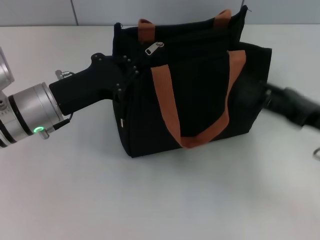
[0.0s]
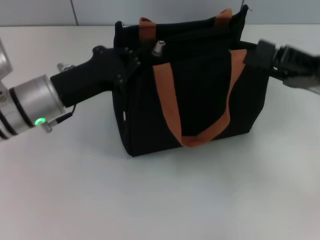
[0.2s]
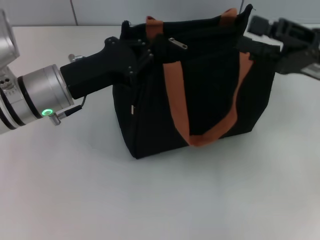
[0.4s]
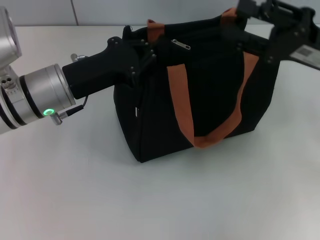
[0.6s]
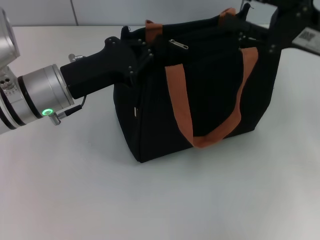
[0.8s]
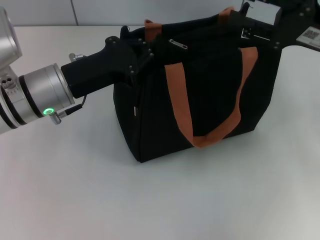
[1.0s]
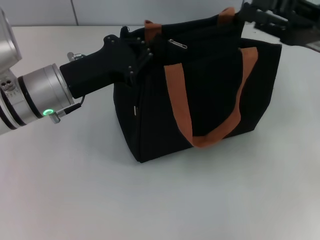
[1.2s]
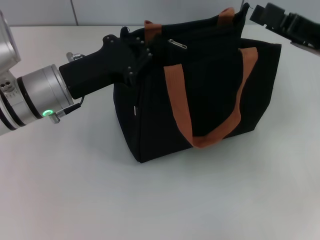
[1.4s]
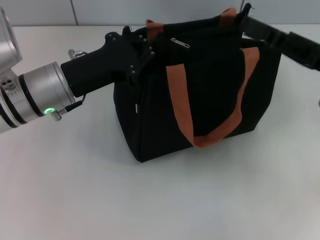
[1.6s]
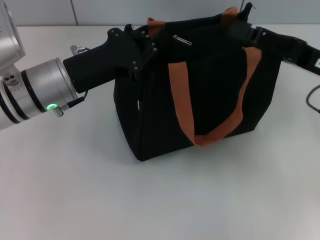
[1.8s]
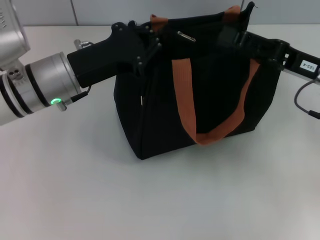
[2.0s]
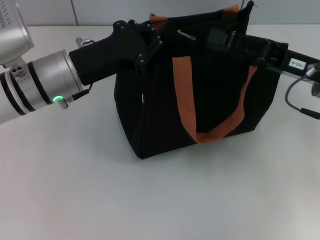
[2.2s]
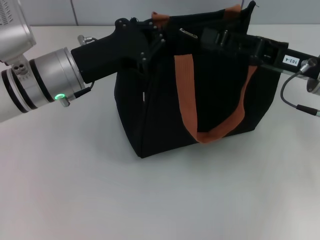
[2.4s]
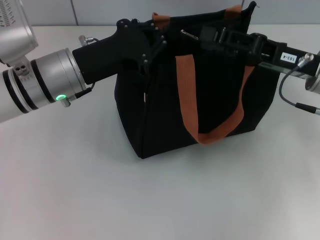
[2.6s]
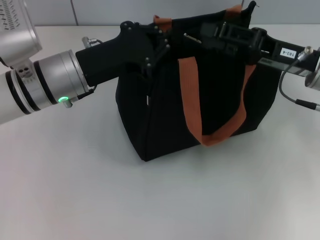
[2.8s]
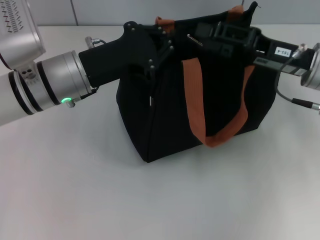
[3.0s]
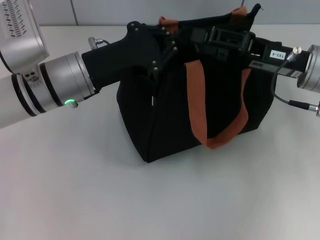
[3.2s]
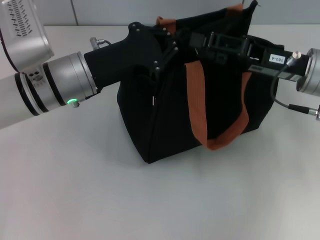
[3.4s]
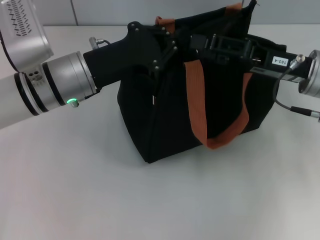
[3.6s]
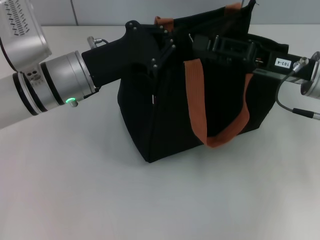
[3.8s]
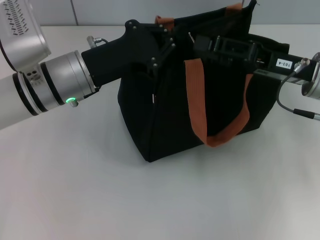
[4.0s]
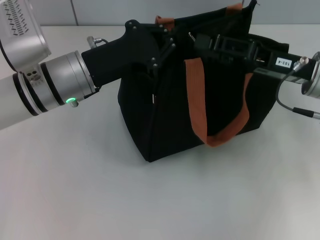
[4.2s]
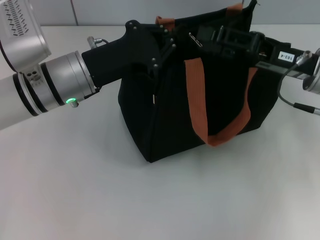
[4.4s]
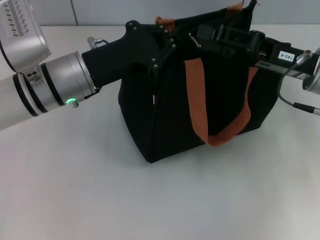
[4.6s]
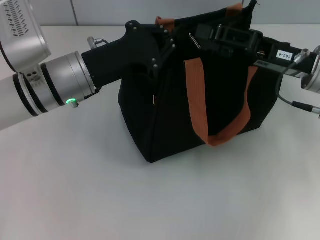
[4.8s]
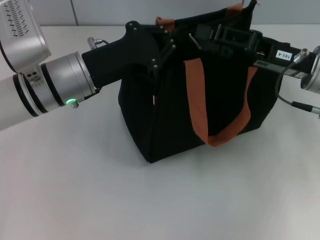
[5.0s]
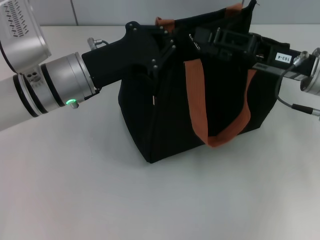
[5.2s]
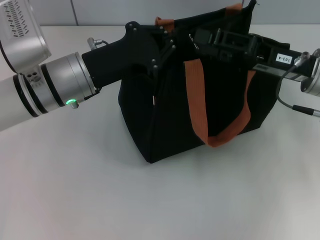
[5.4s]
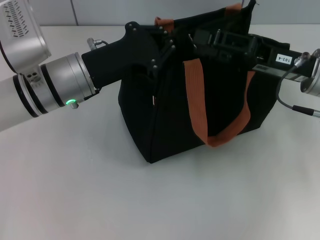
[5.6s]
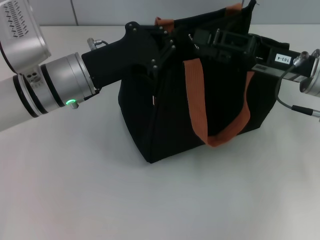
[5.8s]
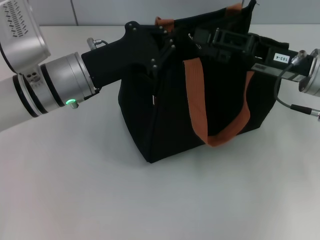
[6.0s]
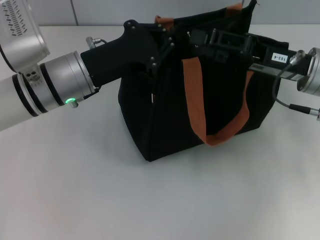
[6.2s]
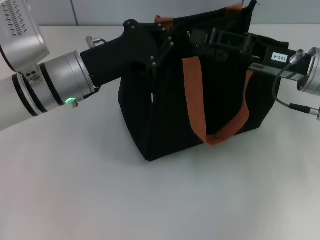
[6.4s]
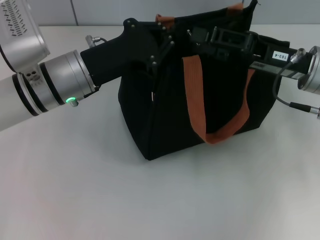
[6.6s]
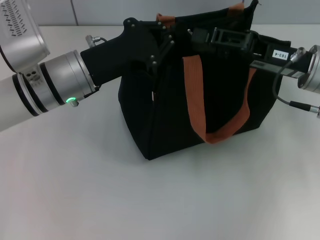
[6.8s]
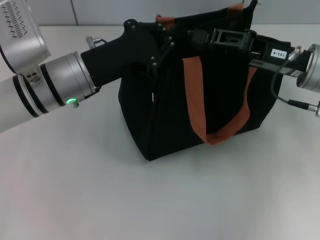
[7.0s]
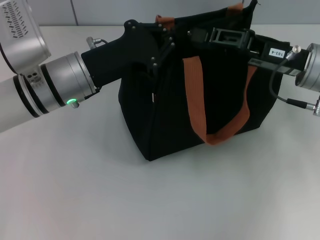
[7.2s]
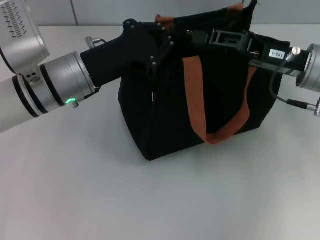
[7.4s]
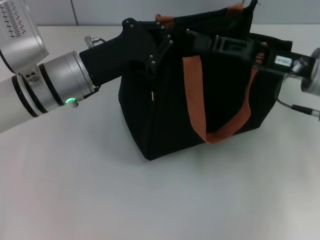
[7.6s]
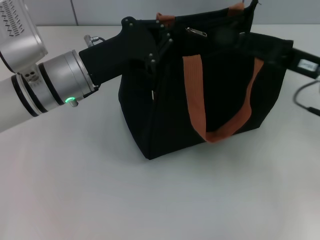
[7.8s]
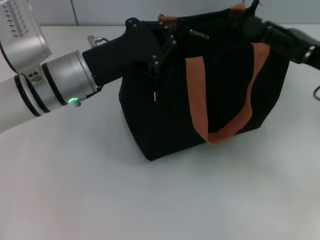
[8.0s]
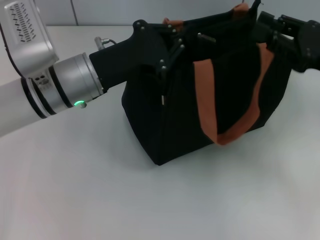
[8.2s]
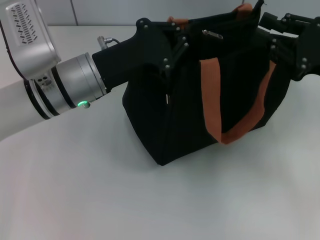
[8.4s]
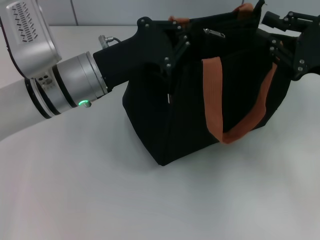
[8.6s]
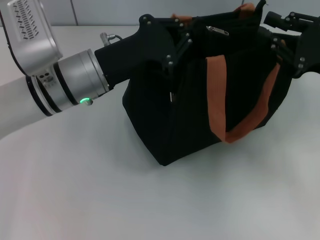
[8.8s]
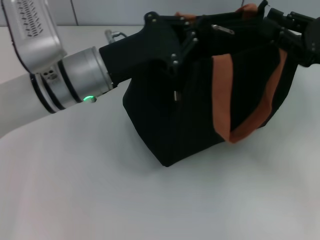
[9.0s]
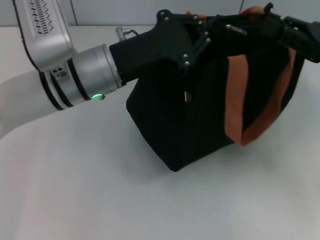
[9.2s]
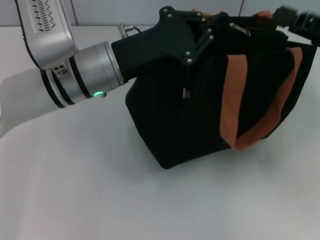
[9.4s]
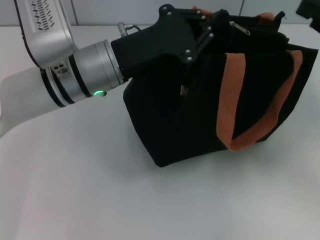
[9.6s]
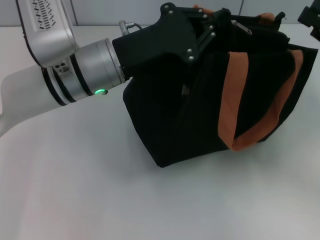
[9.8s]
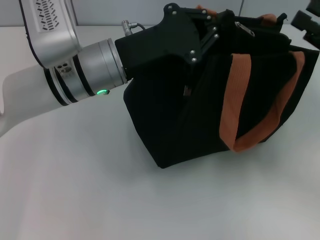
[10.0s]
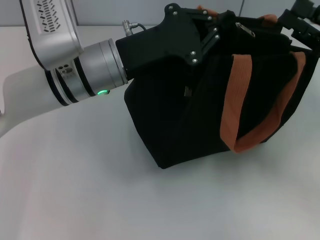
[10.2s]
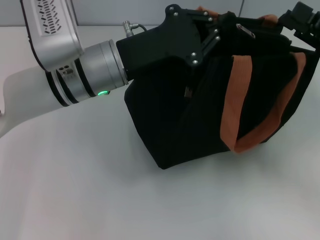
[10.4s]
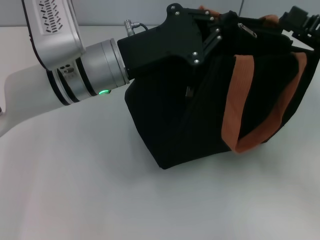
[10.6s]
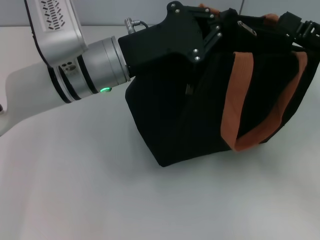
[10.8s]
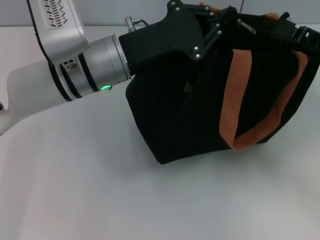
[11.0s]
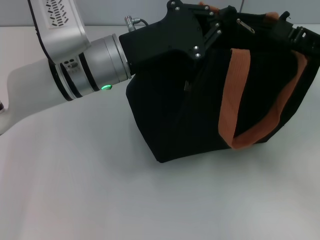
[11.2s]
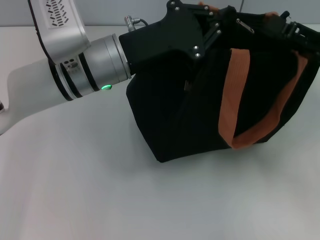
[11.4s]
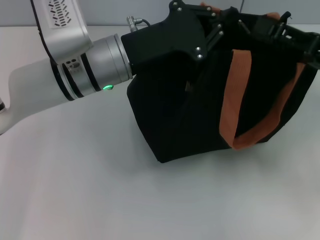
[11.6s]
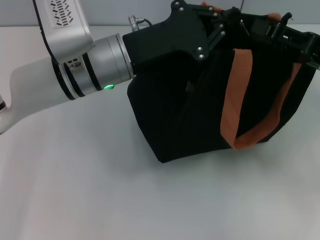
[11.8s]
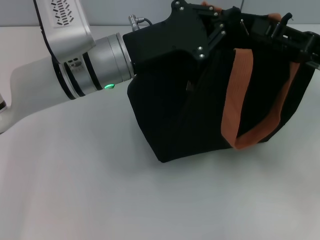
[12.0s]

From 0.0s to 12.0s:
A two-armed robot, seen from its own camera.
From 1.6s to 3.0s: The right gripper shifts by some 5 cm.
From 3.0s to 4.4s: The grippers move only a little.
From 4.4s to 6.0s: Neither gripper changes place.
From 6.0s to 7.6s: The right gripper closes up.
From 7.6s to 9.0s: The right gripper shifts approximately 5 cm to the right.
From 10.4s to 12.0s: The grippers move only a little.

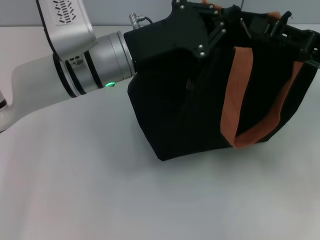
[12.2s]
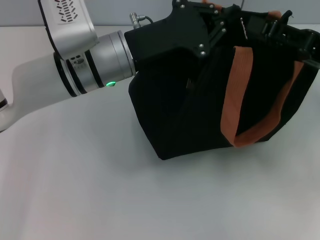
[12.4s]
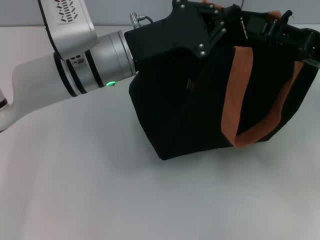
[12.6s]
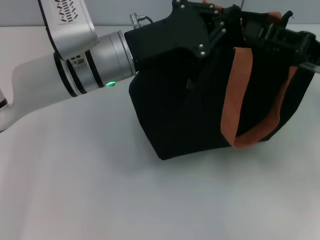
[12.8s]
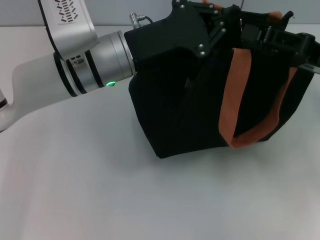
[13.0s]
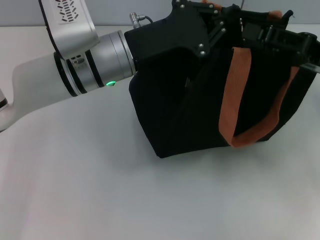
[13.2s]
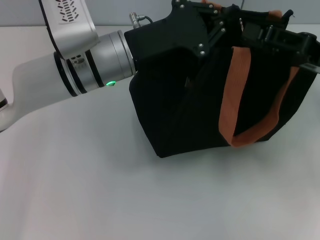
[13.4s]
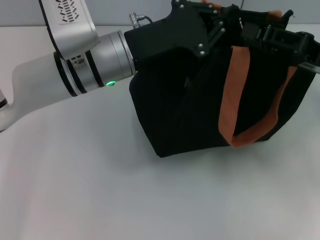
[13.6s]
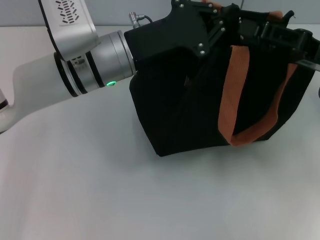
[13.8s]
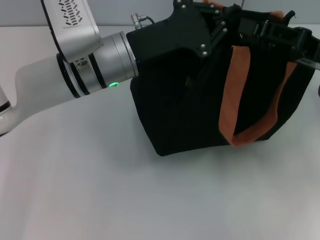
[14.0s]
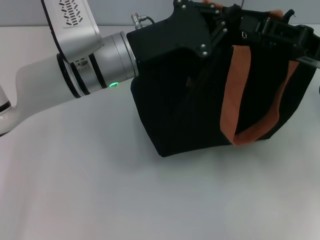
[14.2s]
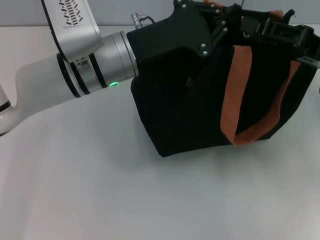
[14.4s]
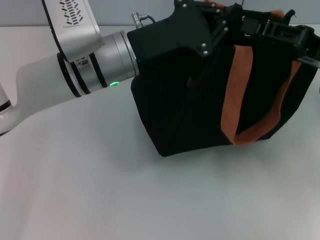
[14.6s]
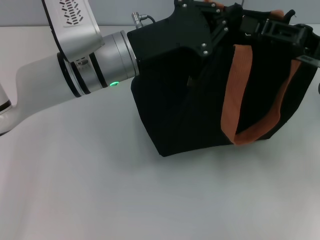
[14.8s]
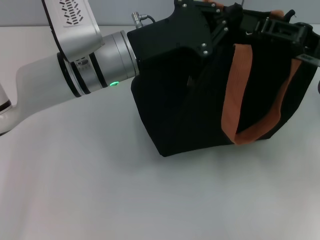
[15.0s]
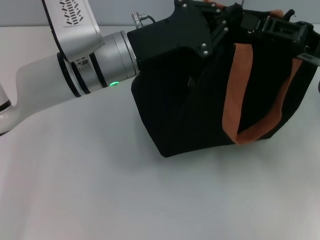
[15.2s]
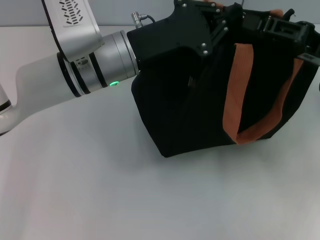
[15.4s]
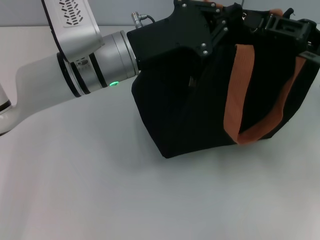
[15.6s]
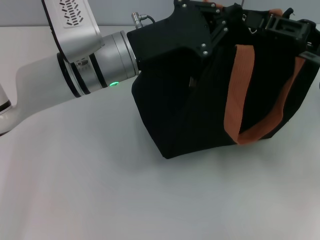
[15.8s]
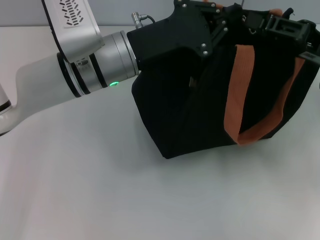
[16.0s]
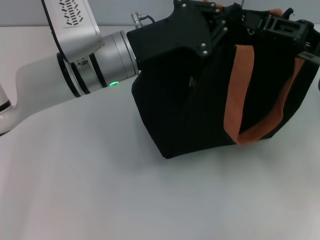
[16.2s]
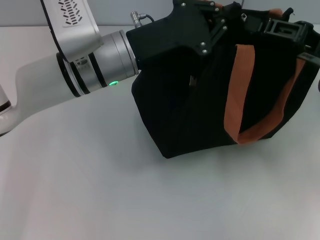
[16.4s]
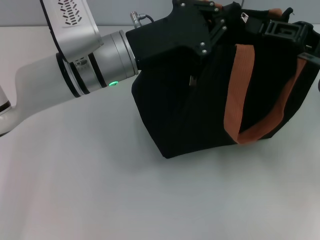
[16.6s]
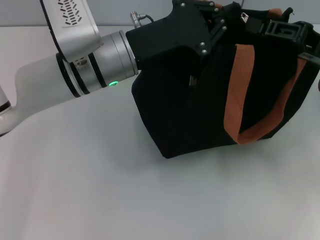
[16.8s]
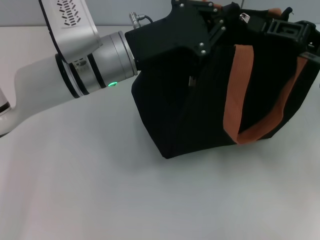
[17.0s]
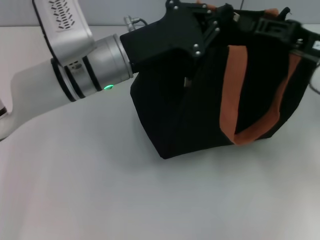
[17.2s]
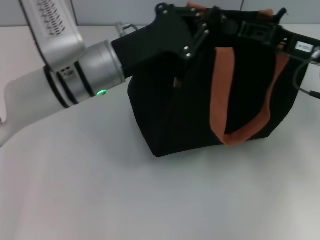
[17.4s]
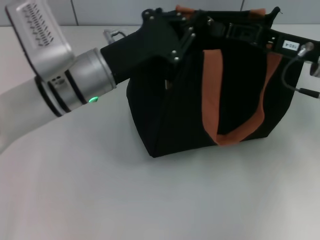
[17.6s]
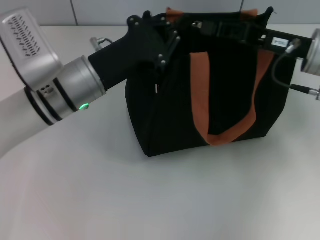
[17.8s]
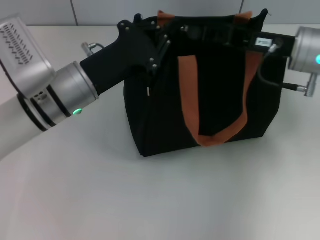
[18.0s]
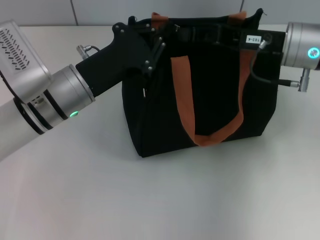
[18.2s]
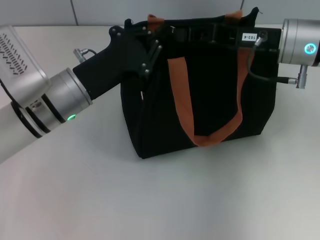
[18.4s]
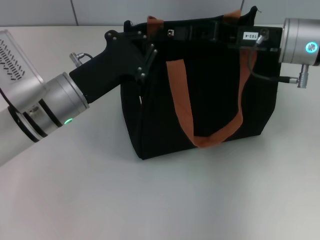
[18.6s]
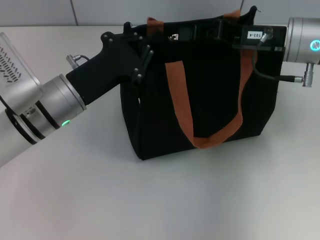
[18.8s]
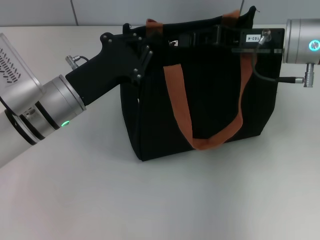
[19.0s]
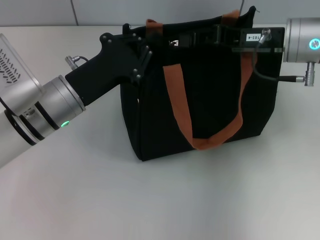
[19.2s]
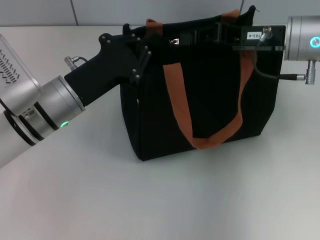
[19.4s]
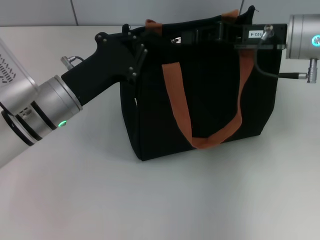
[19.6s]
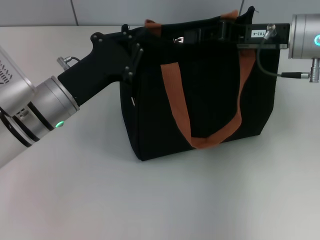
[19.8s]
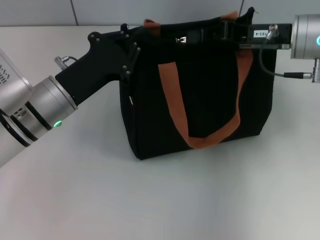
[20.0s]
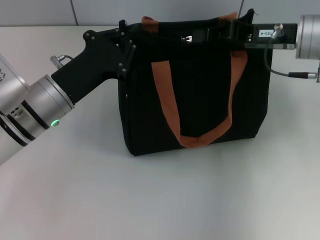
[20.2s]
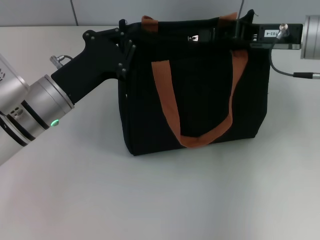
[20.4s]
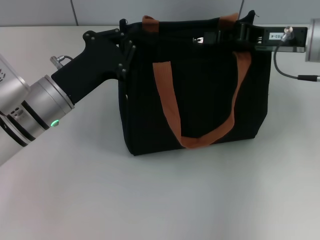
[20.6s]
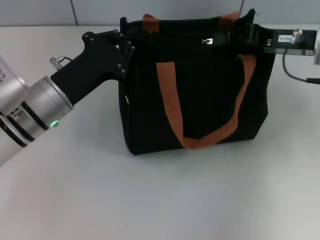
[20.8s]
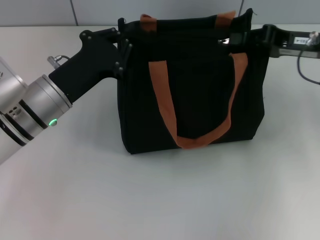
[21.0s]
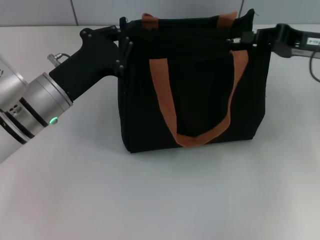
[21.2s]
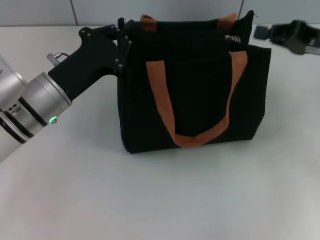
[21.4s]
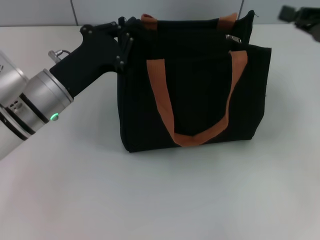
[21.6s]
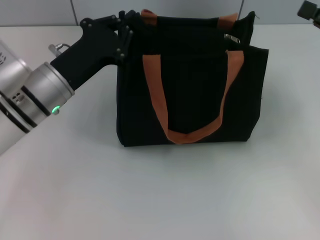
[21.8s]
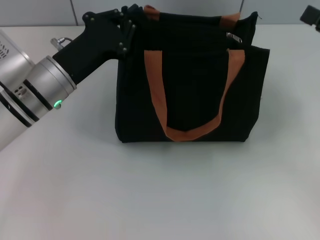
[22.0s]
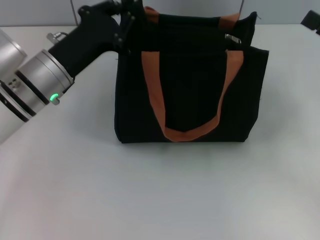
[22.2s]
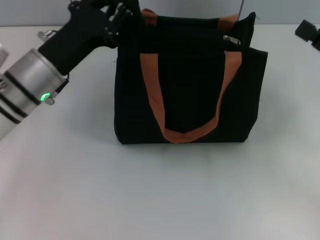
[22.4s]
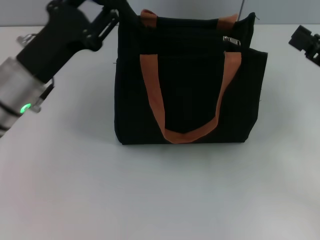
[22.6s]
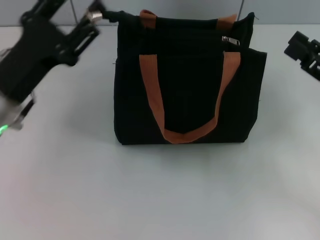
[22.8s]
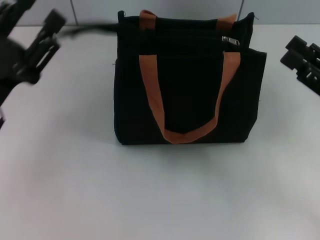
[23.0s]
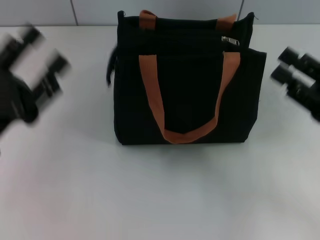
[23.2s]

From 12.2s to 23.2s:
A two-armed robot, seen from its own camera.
Step, from 12.2s to 21.8s: Pull up the zipper with your right hand.
Step, from 22.0s to 23.0s: Grab the zipper with your left hand.
From 12.2s to 13.8s: The grippers move only a little.
From 13.8s to 15.4s: Both grippers stay about where they are.
From 15.4s to 17.0s: The right gripper closes up.
From 17.0s to 18.4s: The left gripper shifts roughly 5 cm to the left; the right gripper shifts roughly 10 cm to the left and forward.
From 18.4s to 20.0s: The grippers stay close to where they were, moving slightly.
From 20.0s to 21.6s: The right gripper shifts roughly 10 cm to the right.
From 21.6s to 23.2s: The left gripper is displaced backward and to the left by about 15 cm, and opens up; the right gripper goes some 10 cm backward and downward, and opens.
